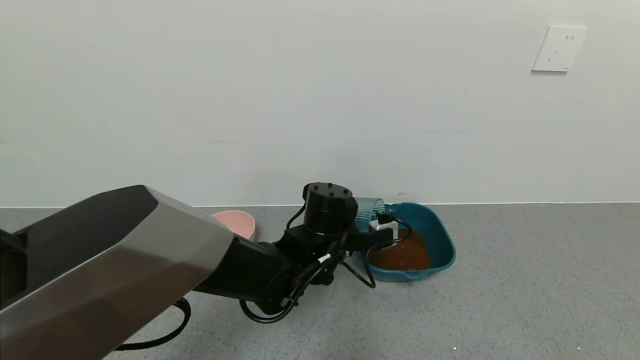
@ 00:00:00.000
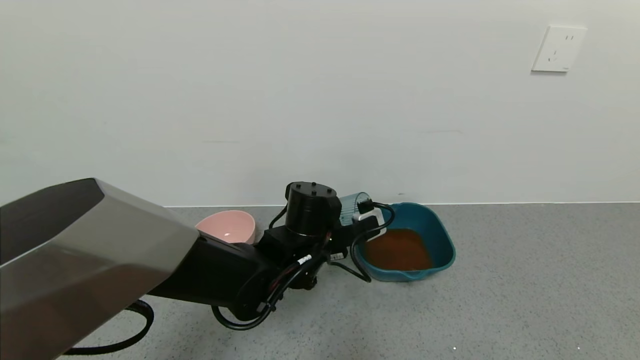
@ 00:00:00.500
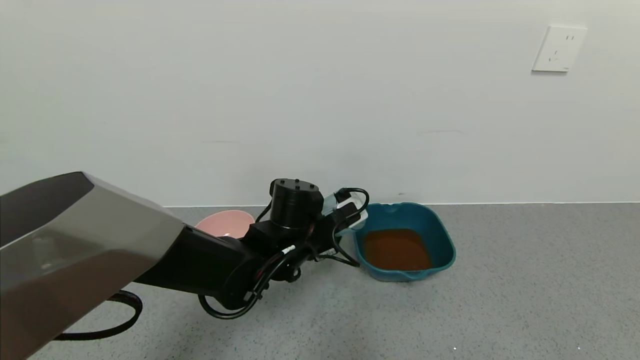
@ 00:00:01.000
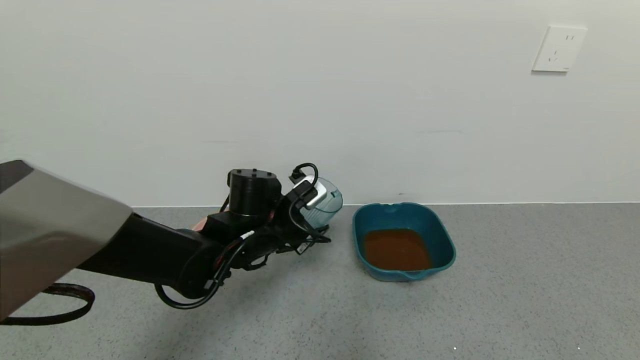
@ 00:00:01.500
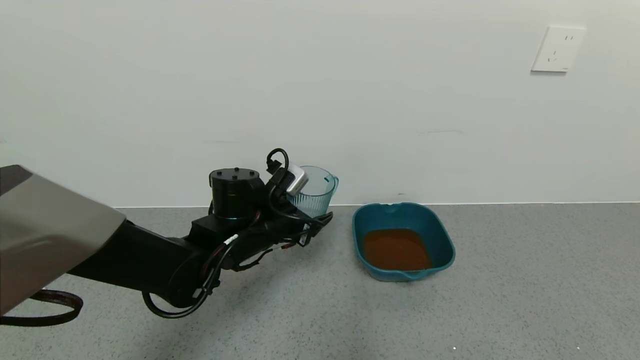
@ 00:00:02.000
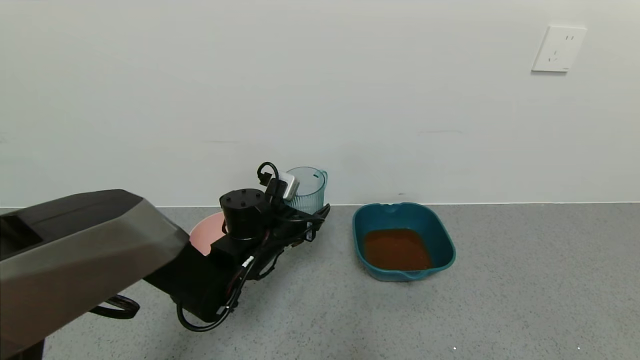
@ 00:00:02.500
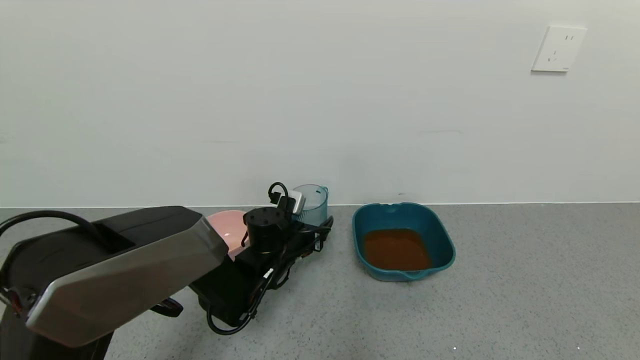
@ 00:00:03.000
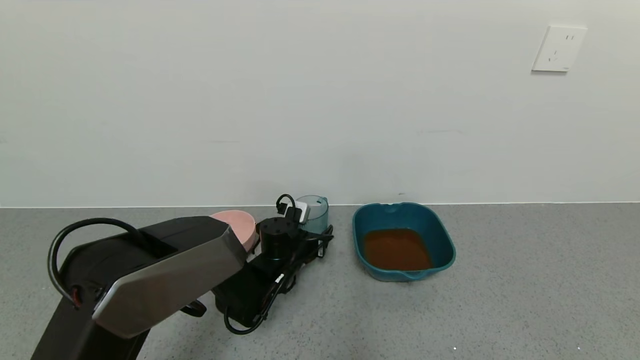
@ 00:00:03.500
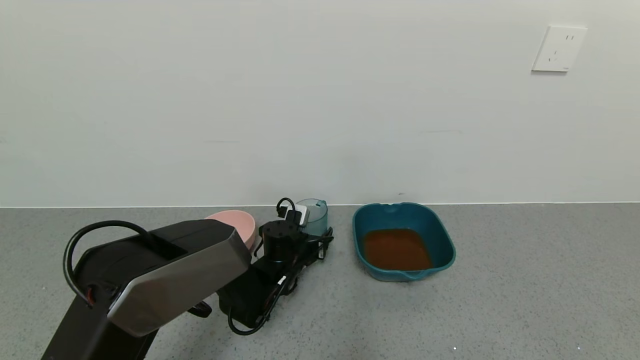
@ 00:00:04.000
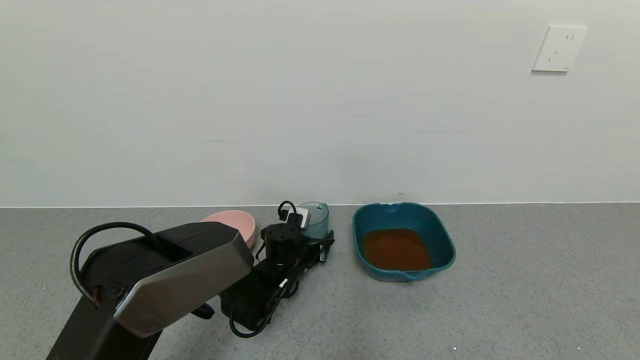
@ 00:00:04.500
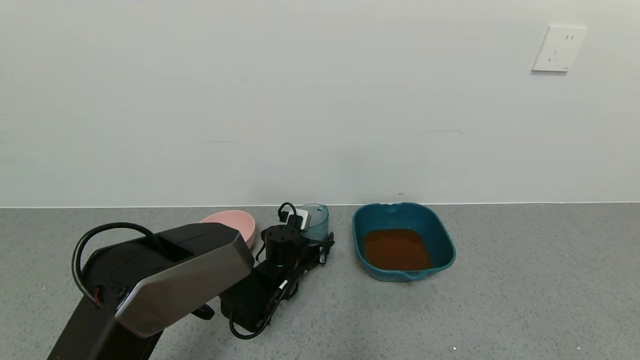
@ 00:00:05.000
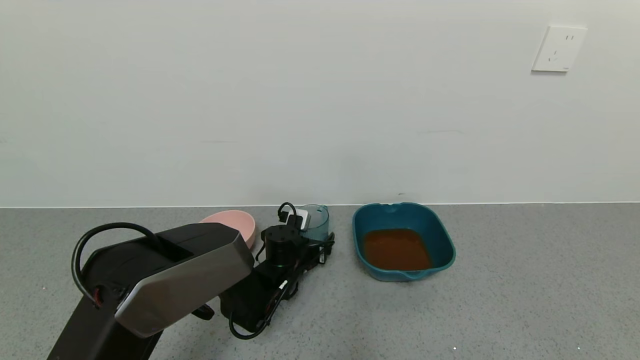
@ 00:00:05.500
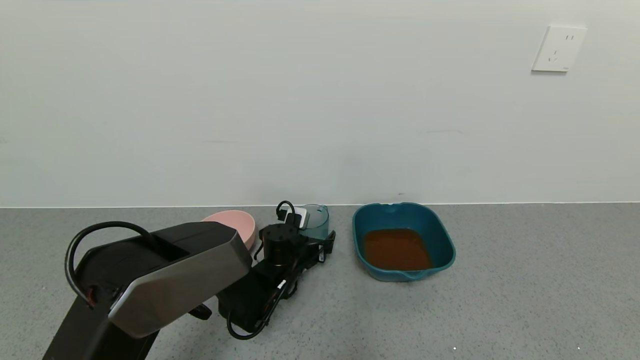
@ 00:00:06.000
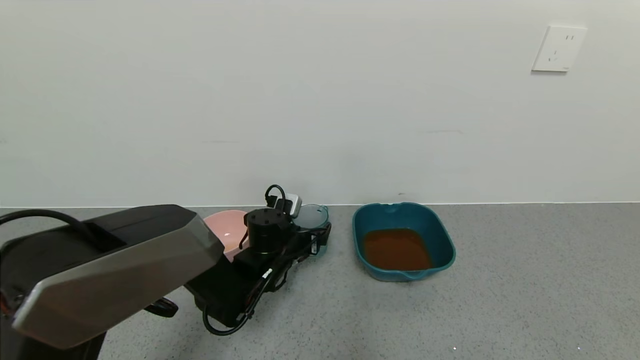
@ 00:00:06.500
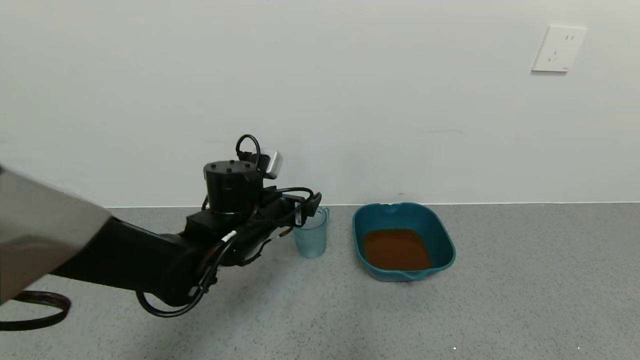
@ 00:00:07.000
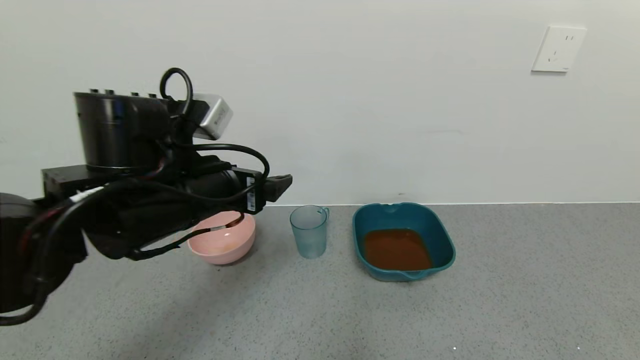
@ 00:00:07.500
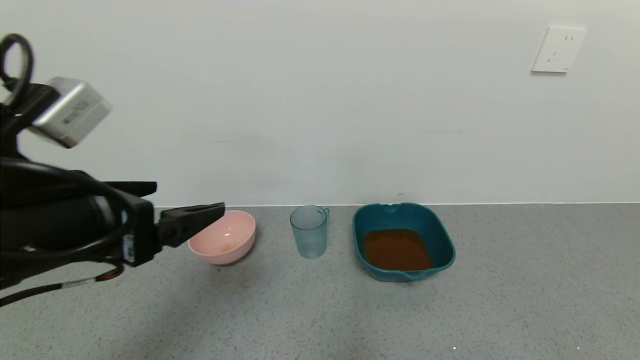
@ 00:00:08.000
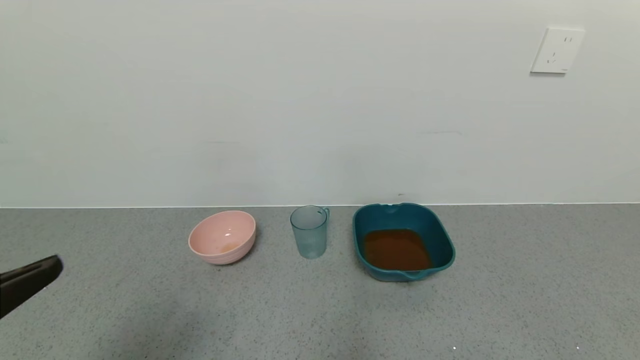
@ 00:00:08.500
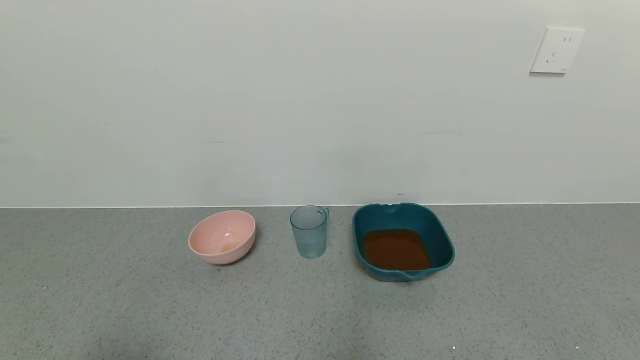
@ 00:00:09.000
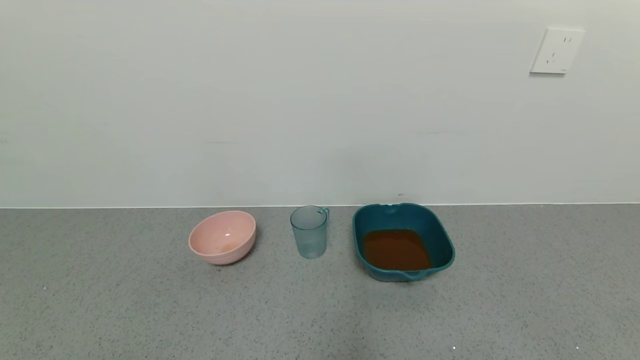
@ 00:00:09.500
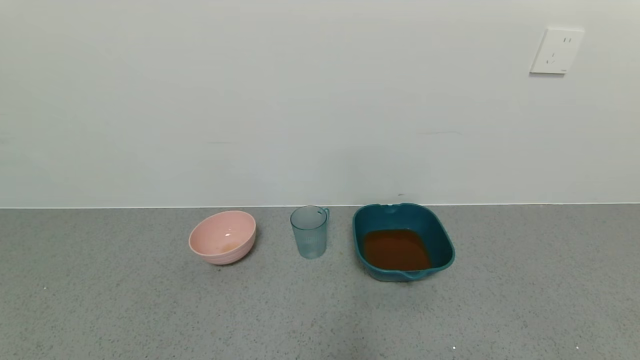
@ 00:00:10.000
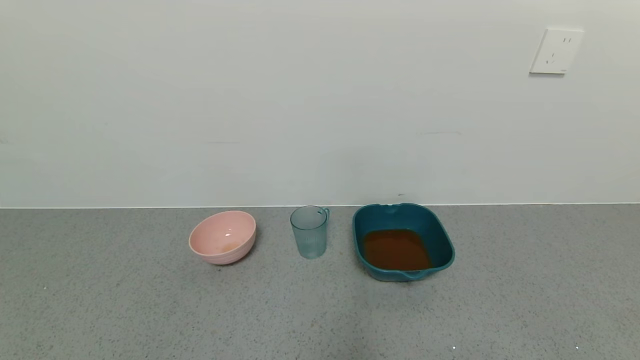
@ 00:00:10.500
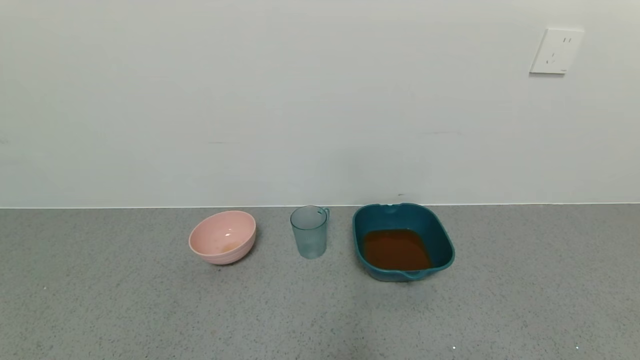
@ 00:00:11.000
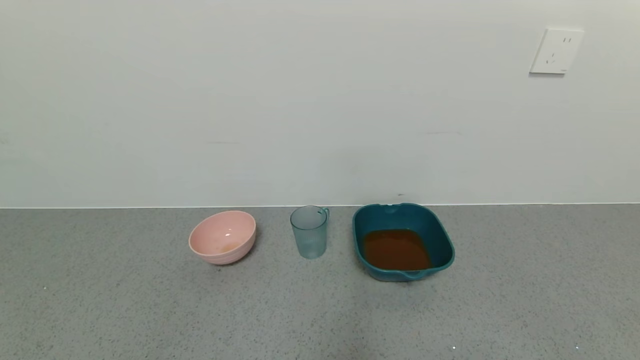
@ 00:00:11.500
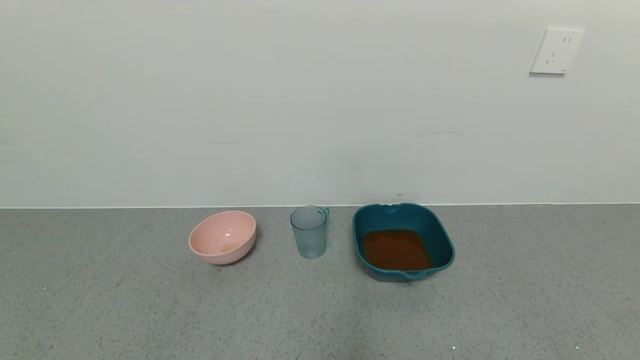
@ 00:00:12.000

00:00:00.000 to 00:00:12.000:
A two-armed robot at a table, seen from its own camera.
Task of the whole recording: use a gripper to pick up the cup and pour the liquid into a bowl or tray.
Step, 00:00:00.000 to 00:00:06.500: Place the glass cup with the left gripper.
00:00:00.000 to 00:00:02.000: The left gripper is displaced to the left by approximately 10 cm.
00:00:02.000 to 00:00:04.000: The left gripper is displaced downward and forward by roughly 15 cm.
00:00:04.000 to 00:00:06.000: The left gripper opens its fingers.
00:00:06.000 to 00:00:08.000: The left gripper is displaced upward, backward and to the left by some 40 cm.
00:00:08.000 to 00:00:10.000: The left gripper shifts some 25 cm backward.
